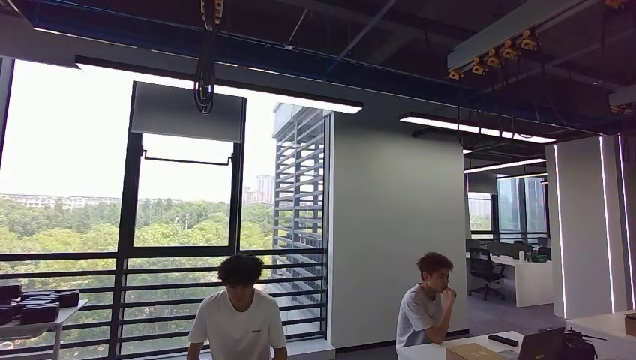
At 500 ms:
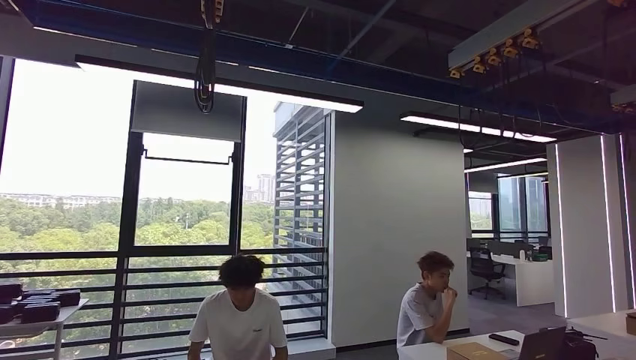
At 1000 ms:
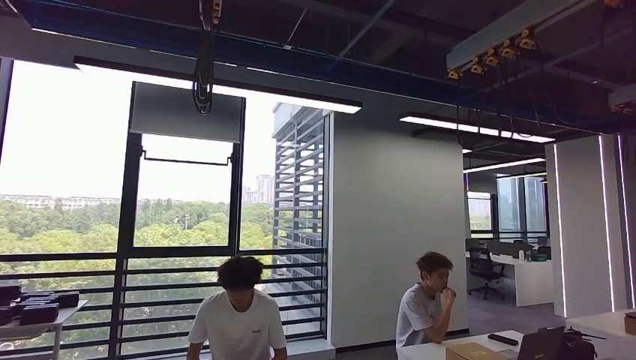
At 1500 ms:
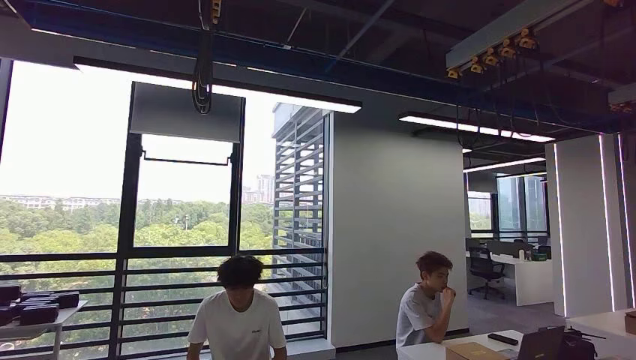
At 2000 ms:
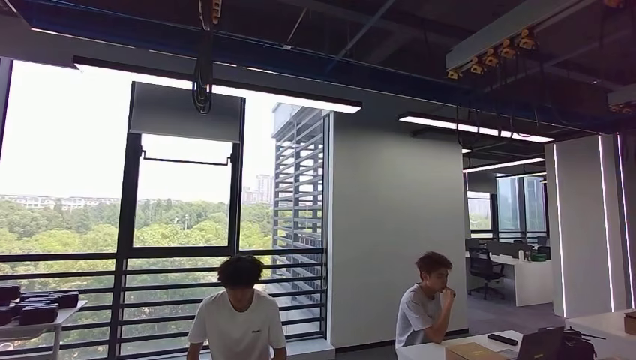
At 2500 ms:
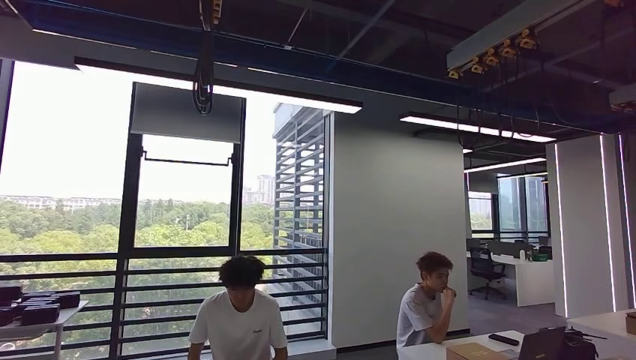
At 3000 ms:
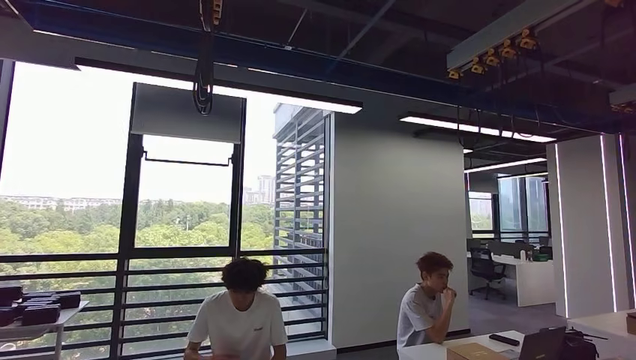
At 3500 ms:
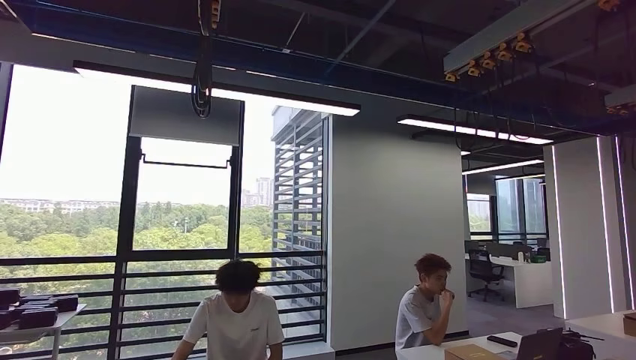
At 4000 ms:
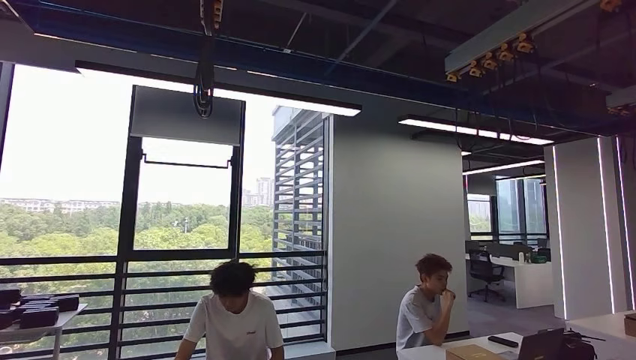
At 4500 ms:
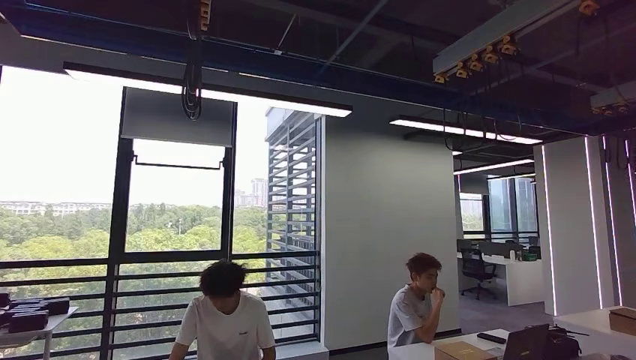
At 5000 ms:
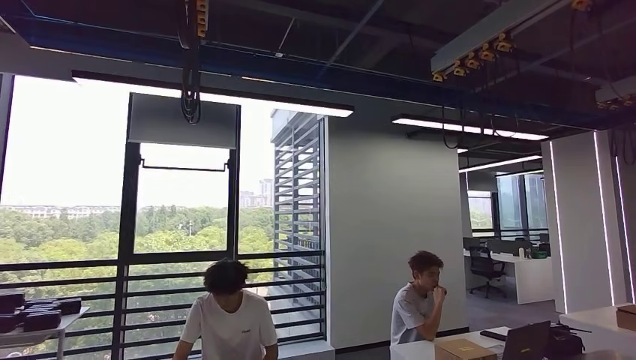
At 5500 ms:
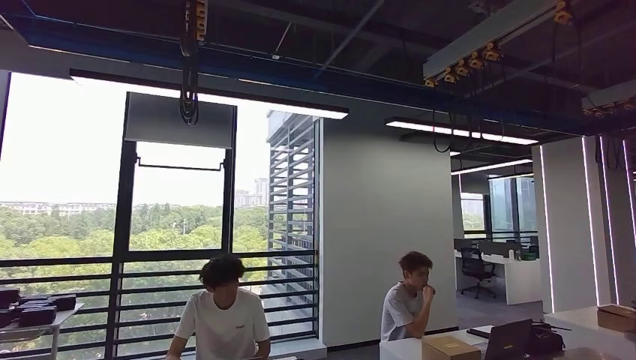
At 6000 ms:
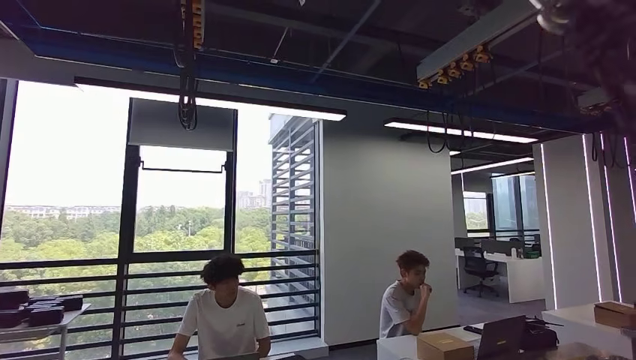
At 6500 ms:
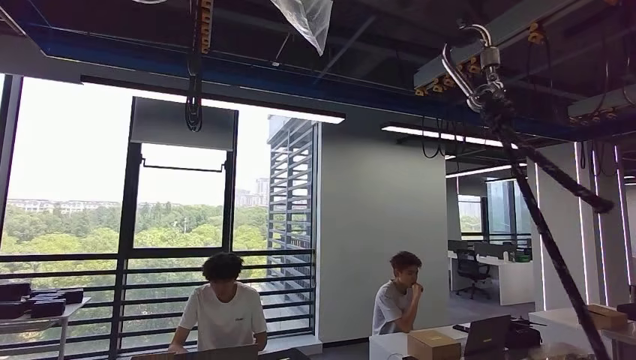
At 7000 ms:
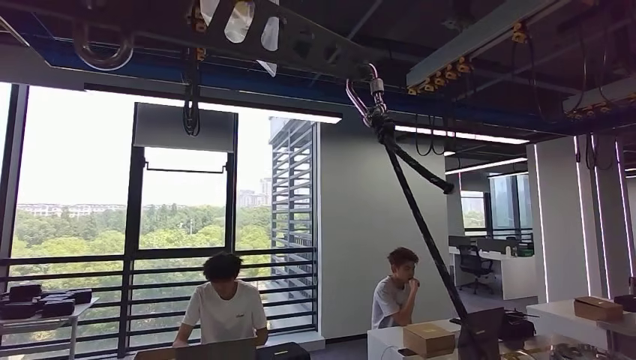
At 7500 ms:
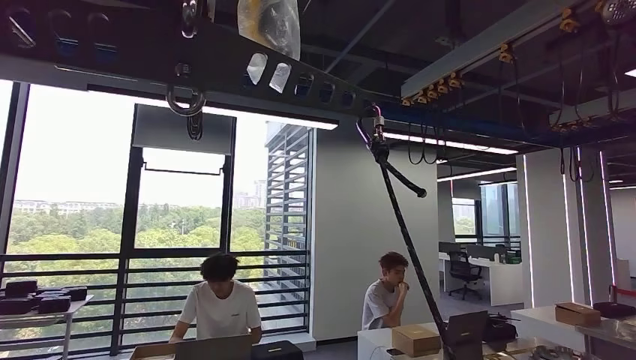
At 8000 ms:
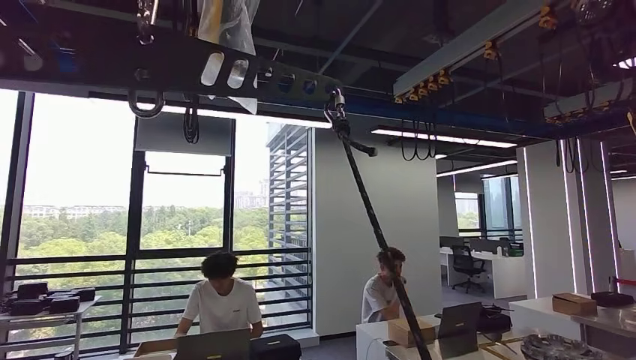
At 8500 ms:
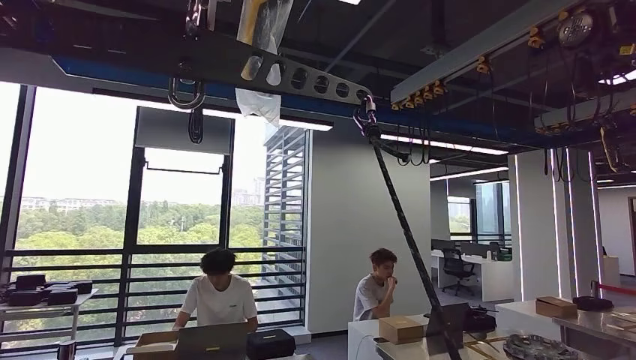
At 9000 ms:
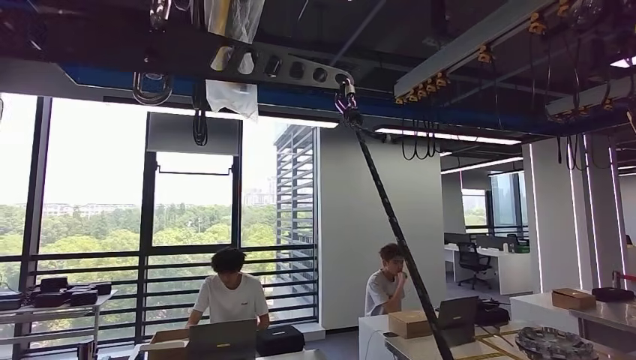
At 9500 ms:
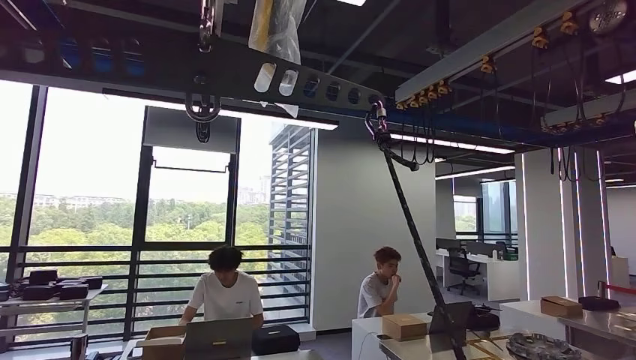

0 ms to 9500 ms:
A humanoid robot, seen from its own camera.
Step, 0 ms to 3000 ms: Insert the large material into the corresponding slot on the workbench.
Step, 3500 ms to 9500 ms: Return to the initial position at the shelf.
0 ms to 2000 ms: The right hand travels to the right and back again, approximately 15 cm each way.
2000 ms to 4000 ms: The right hand travels backward and upward by about 15 cm.

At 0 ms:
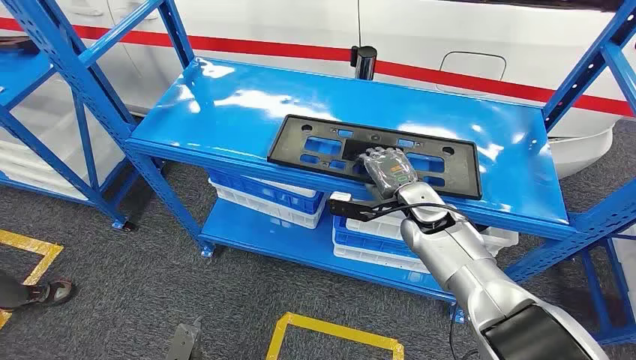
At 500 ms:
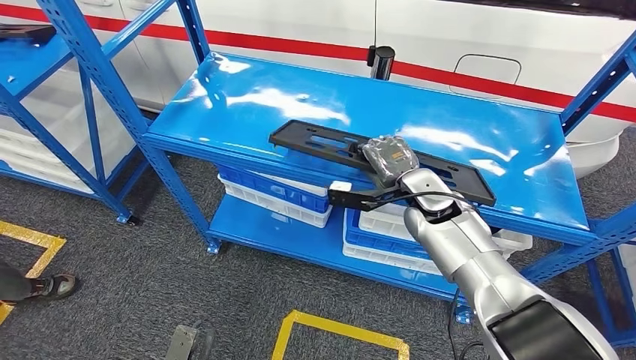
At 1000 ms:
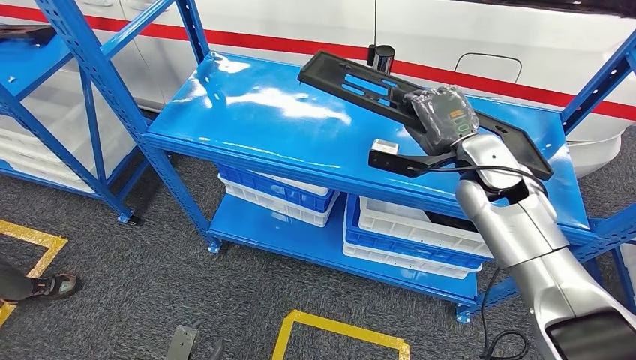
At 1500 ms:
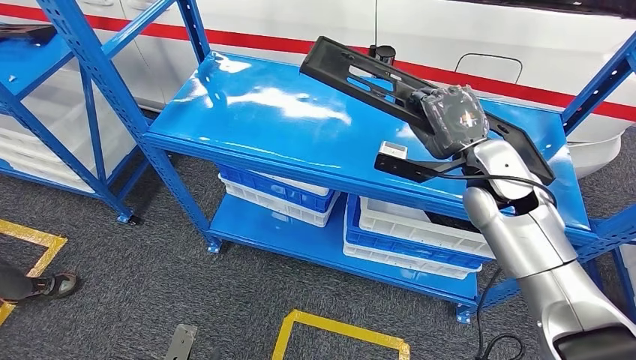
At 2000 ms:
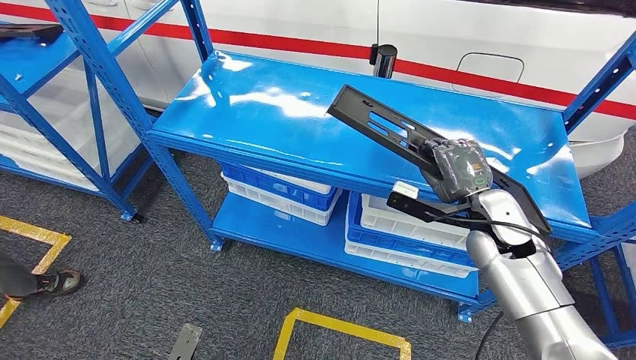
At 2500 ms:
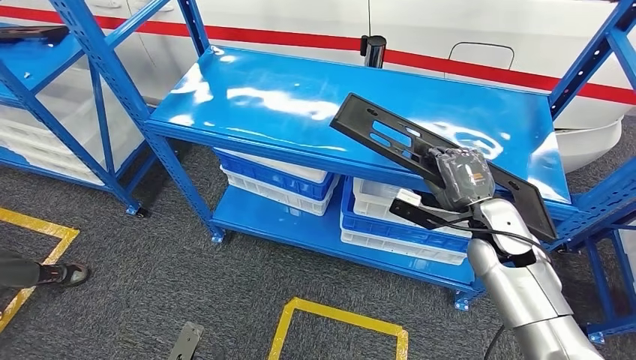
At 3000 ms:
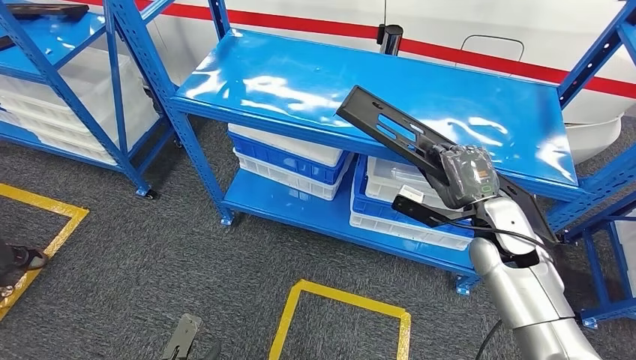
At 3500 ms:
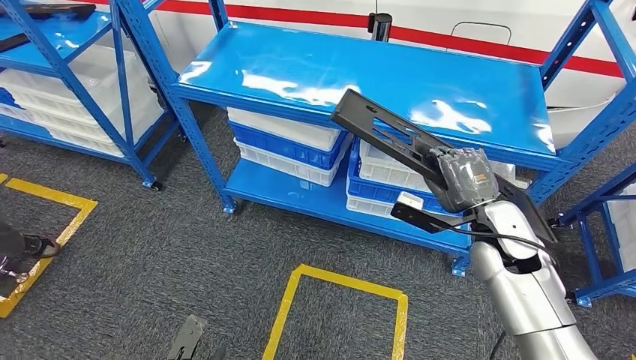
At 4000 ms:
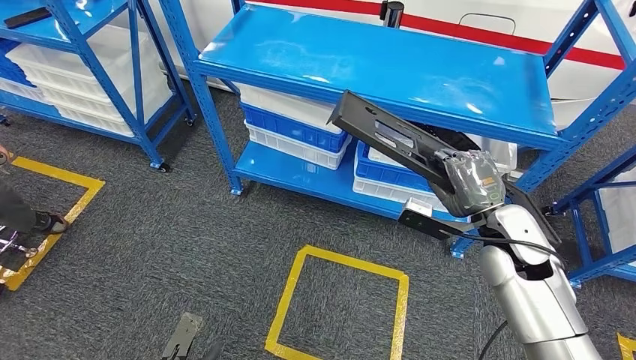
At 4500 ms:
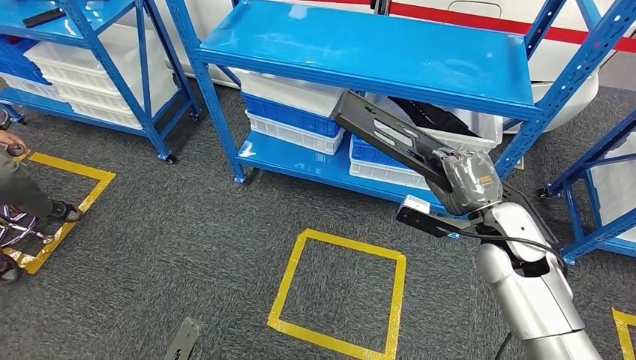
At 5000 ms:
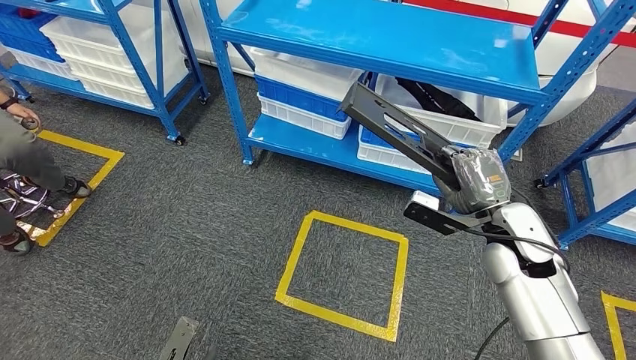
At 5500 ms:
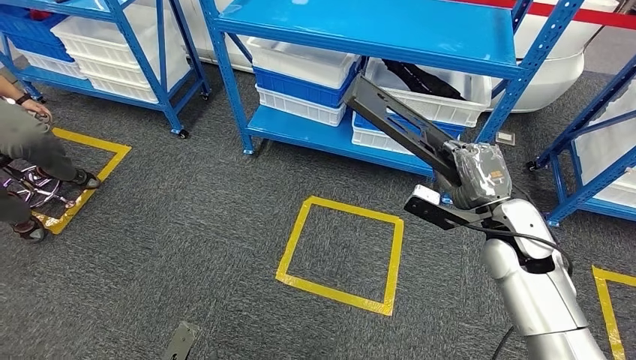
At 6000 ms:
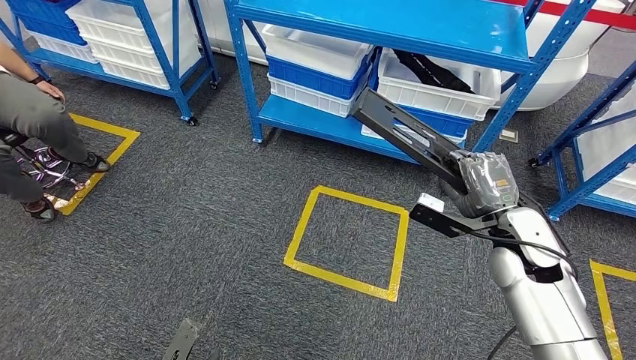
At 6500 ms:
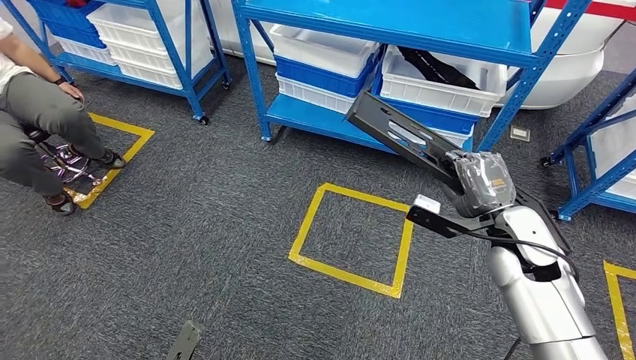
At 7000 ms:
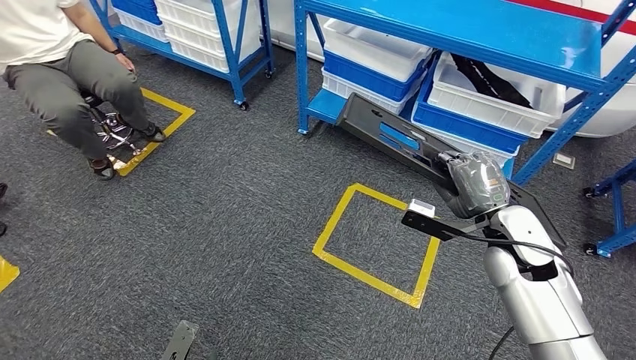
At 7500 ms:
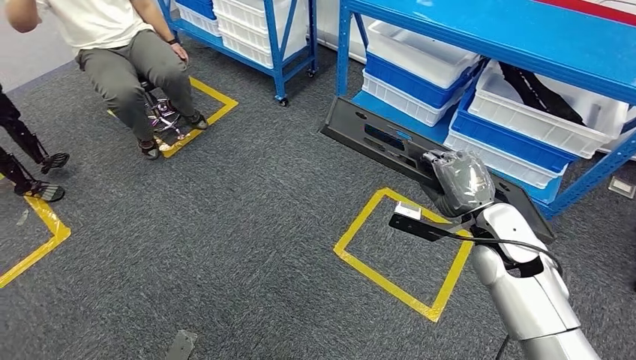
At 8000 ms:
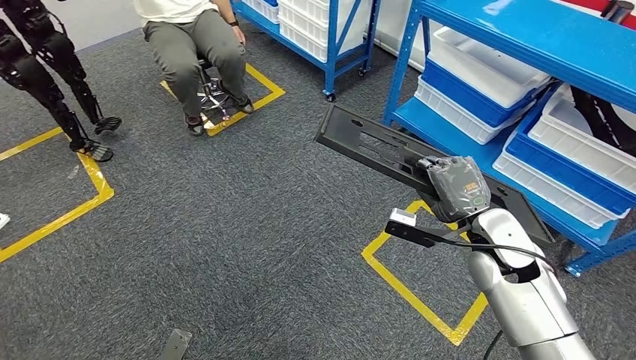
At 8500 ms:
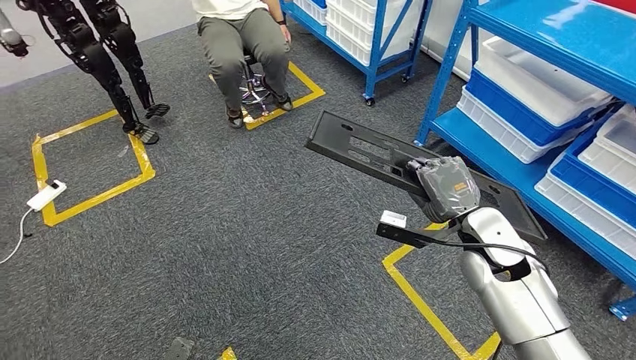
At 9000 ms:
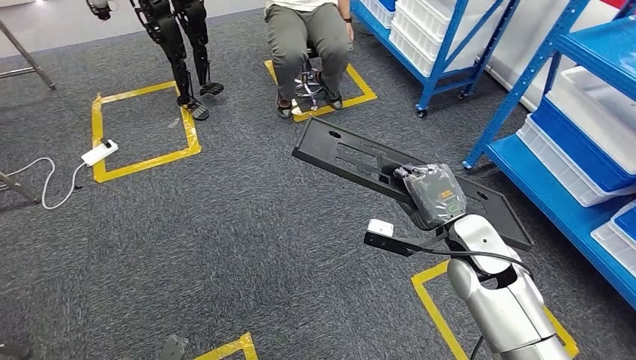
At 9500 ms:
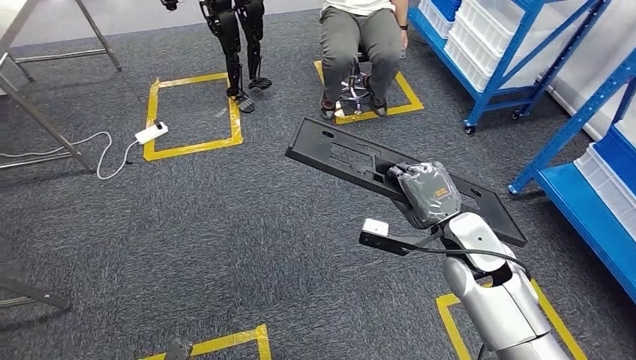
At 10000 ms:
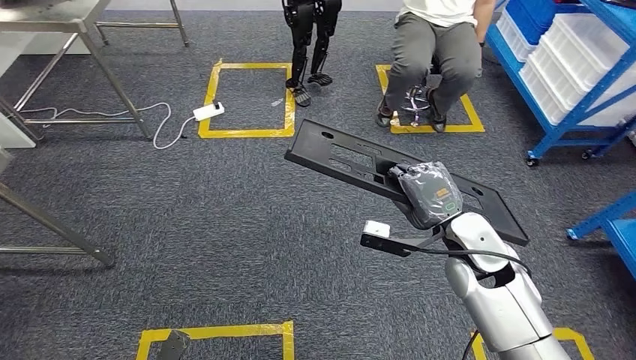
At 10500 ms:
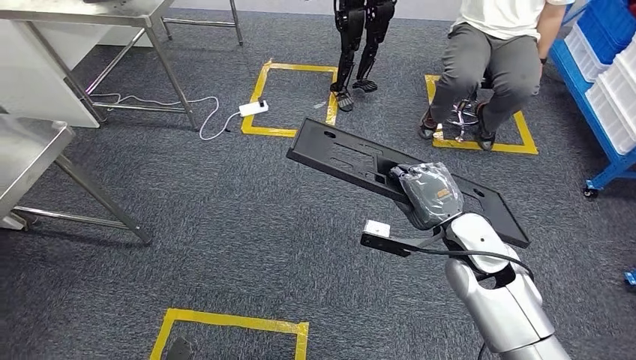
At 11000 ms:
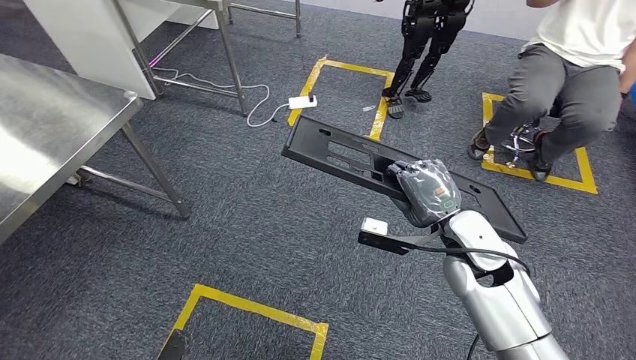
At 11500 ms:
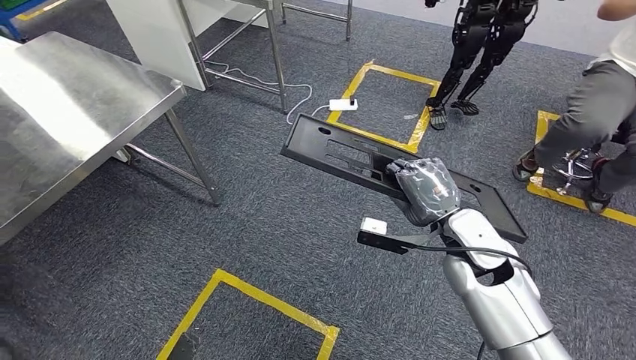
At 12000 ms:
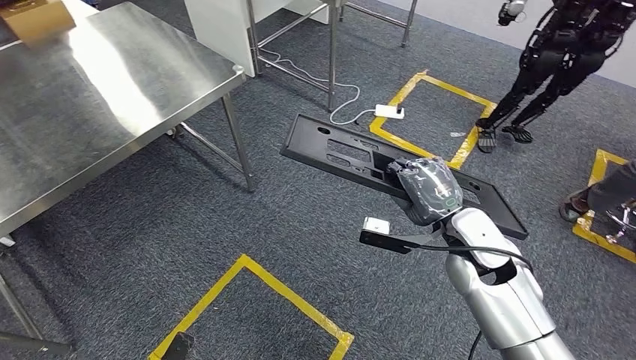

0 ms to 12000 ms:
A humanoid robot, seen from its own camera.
Step, 0 ms to 4000 ms: Pick up the large material from the shelf.
